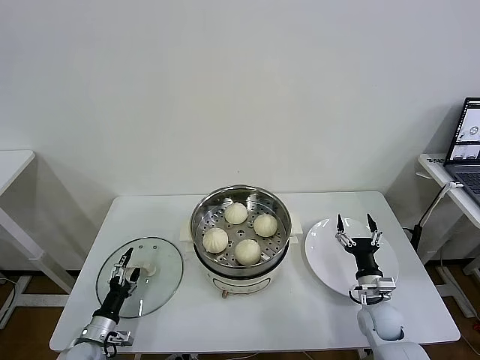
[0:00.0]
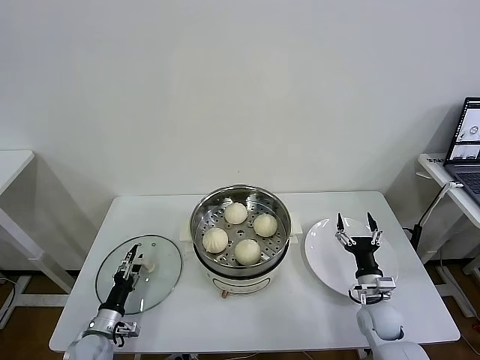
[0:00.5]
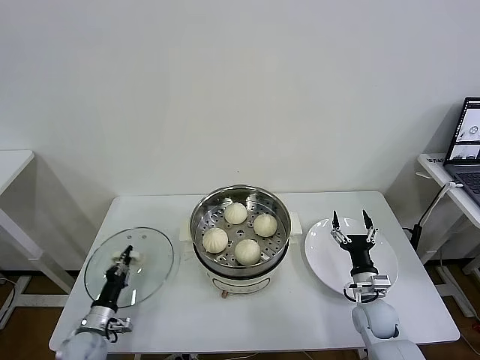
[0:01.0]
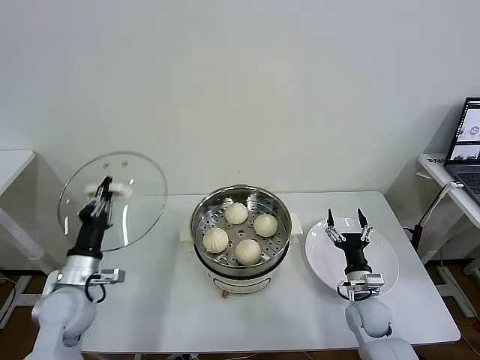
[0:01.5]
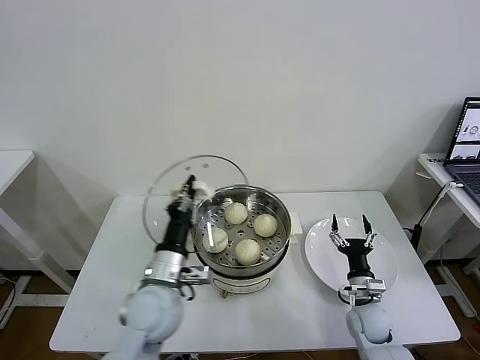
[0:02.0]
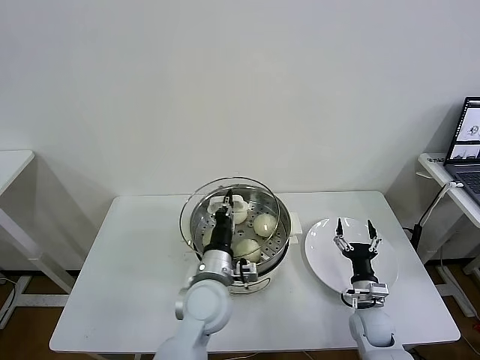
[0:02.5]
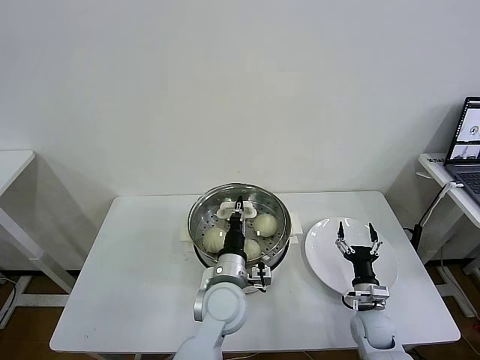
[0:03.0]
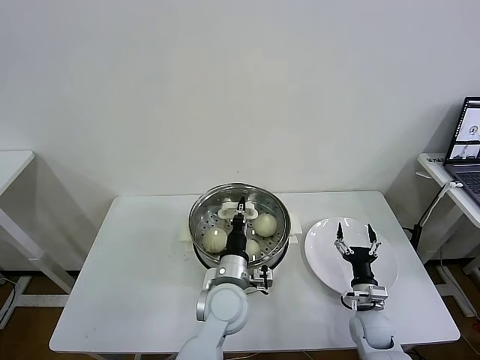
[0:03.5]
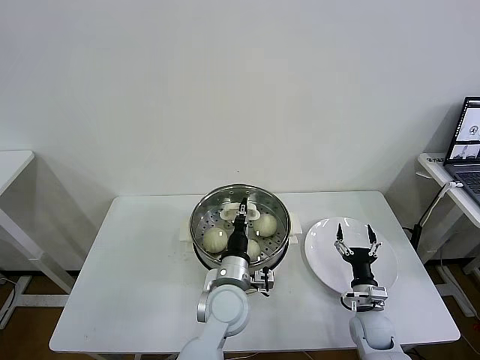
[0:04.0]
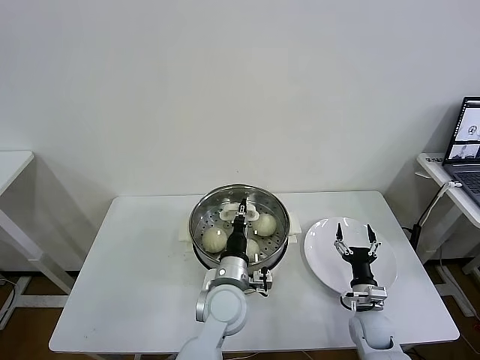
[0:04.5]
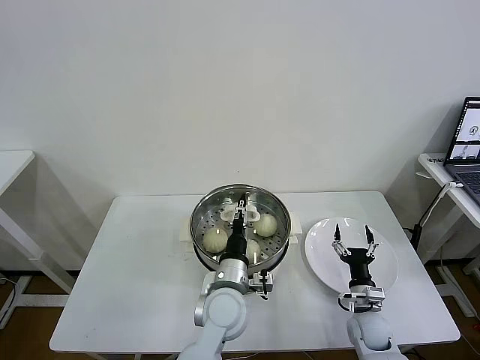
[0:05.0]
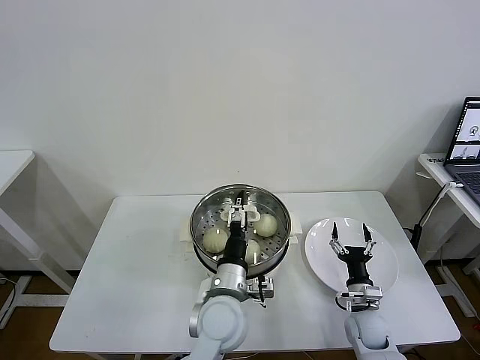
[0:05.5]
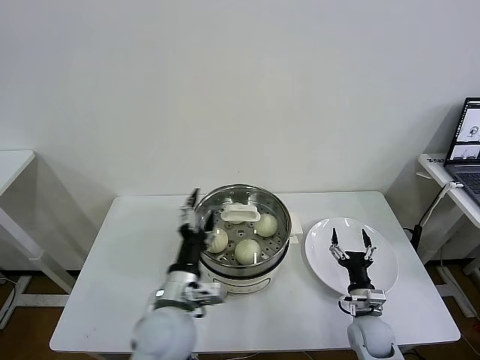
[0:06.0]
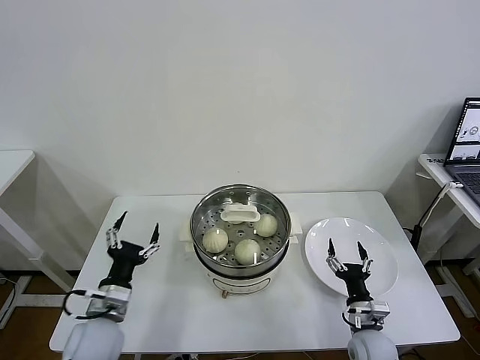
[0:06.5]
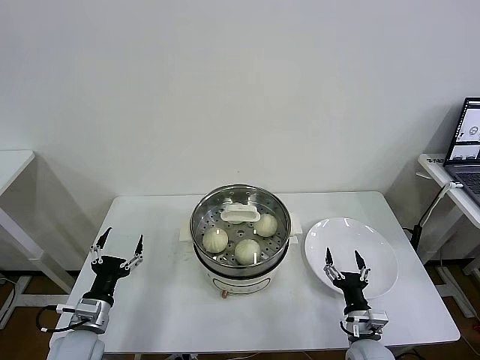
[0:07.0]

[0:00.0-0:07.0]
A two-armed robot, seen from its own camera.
Task of the whole recording: take steamed baozi put them in steamer then cover it.
Step, 0:01.5 to 0:04.5: Place the pot lid on the steamer with left gripper.
0:00.0 to 0:02.0: The left gripper travels upward and to the right by some 30 cm, and closes up.
0:02.0 to 0:03.5: The left gripper goes approximately 15 cm to the right and downward.
0:03.5 to 0:05.0: The left gripper opens.
0:05.0 to 0:07.0: The right gripper heads backward, covering some 5 cm. Meanwhile the left gripper heads to the left, covering roughly 30 cm, and opens up.
